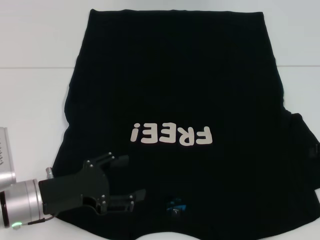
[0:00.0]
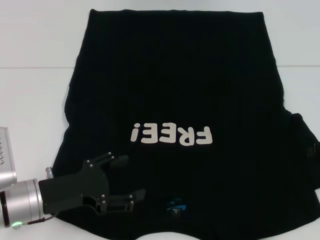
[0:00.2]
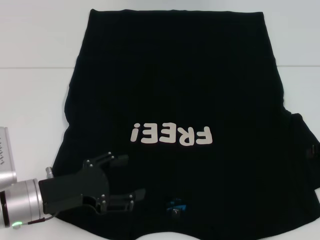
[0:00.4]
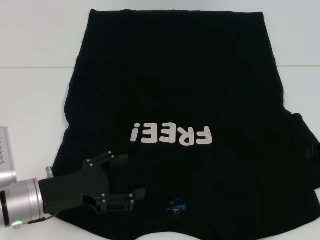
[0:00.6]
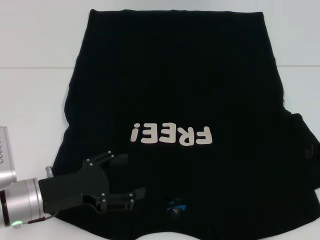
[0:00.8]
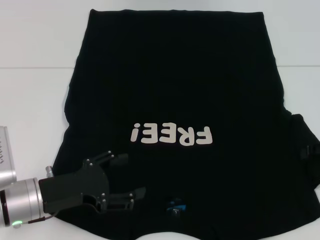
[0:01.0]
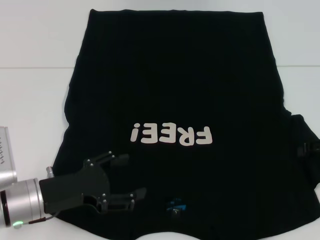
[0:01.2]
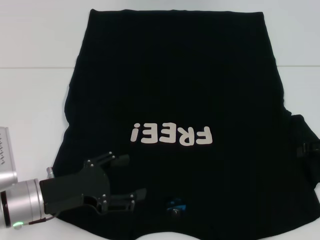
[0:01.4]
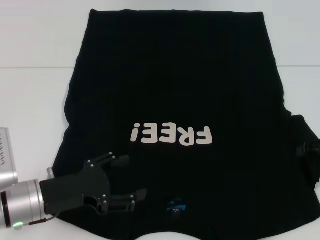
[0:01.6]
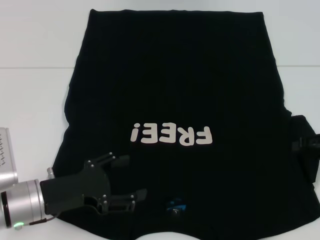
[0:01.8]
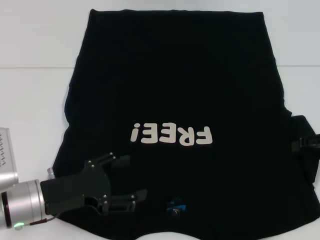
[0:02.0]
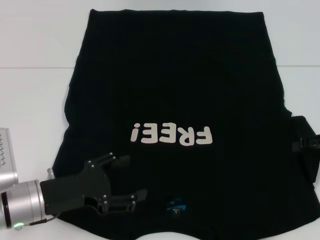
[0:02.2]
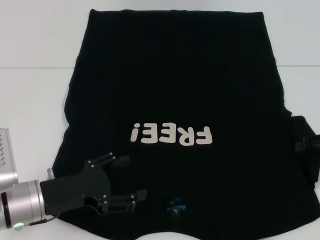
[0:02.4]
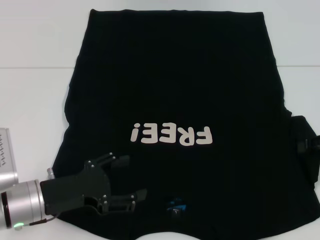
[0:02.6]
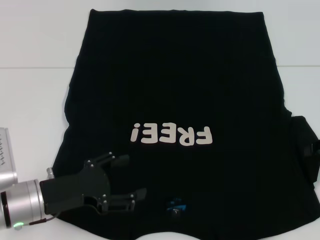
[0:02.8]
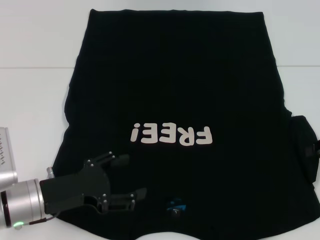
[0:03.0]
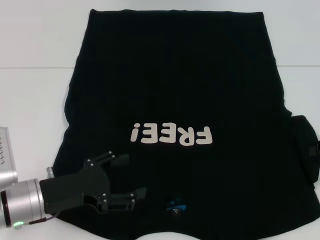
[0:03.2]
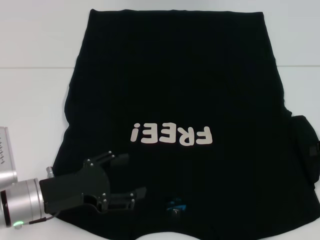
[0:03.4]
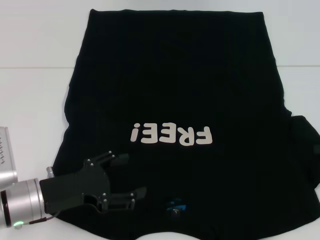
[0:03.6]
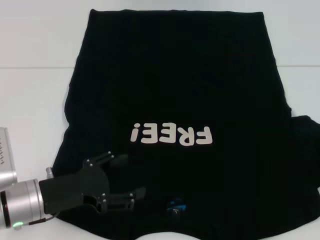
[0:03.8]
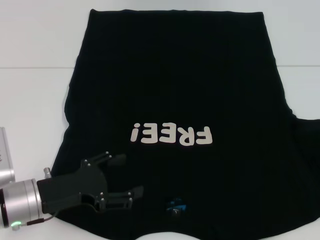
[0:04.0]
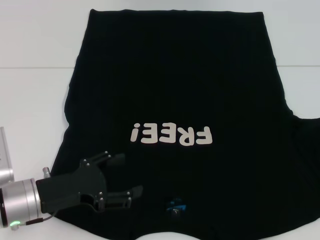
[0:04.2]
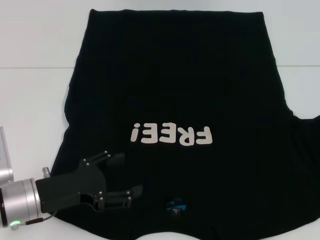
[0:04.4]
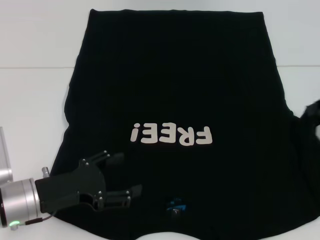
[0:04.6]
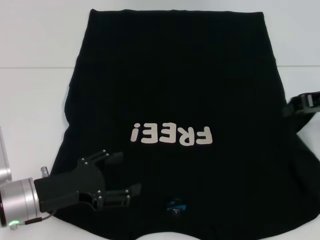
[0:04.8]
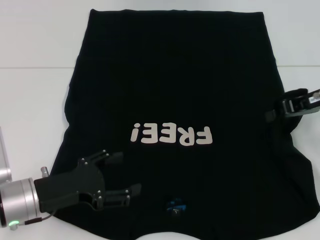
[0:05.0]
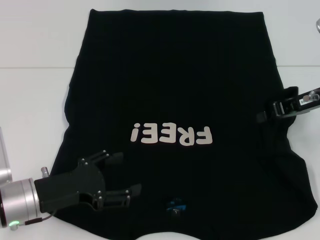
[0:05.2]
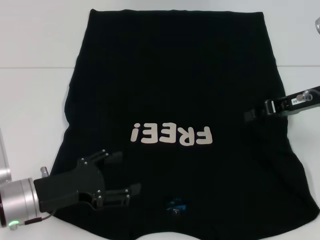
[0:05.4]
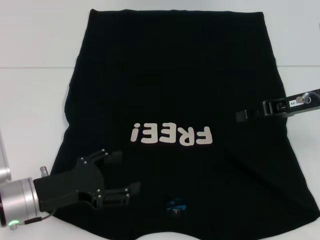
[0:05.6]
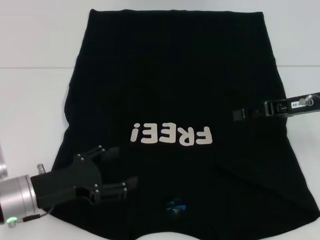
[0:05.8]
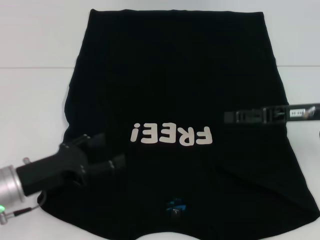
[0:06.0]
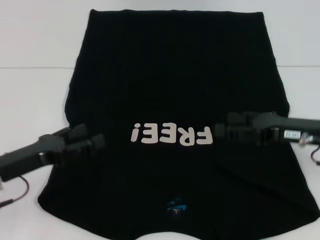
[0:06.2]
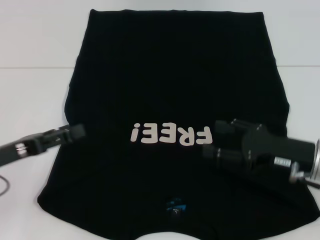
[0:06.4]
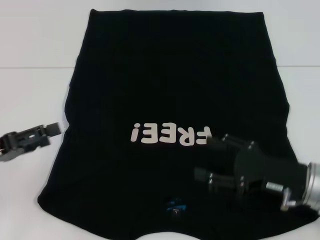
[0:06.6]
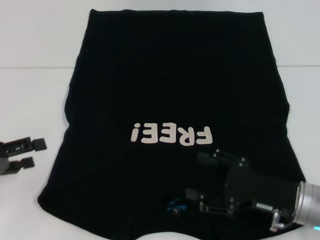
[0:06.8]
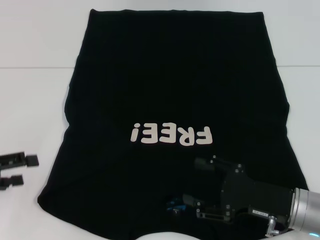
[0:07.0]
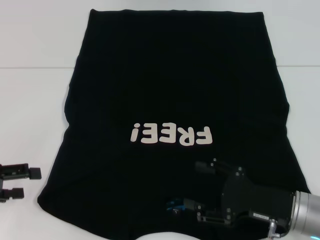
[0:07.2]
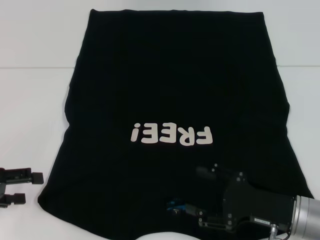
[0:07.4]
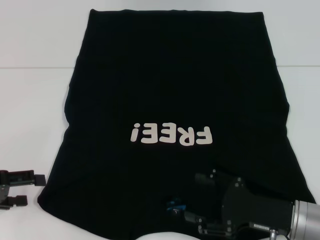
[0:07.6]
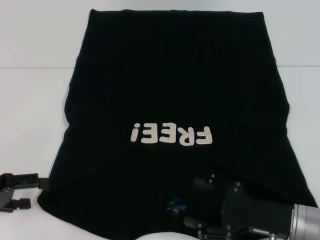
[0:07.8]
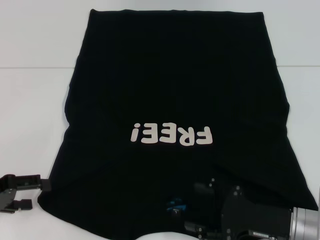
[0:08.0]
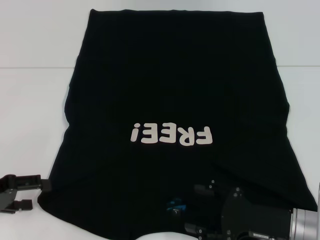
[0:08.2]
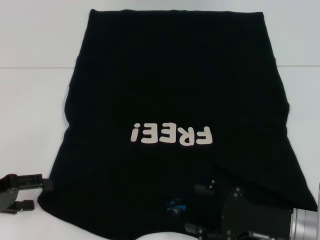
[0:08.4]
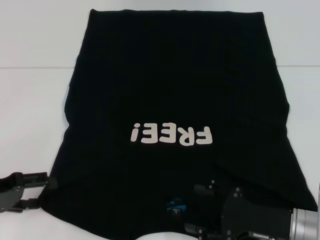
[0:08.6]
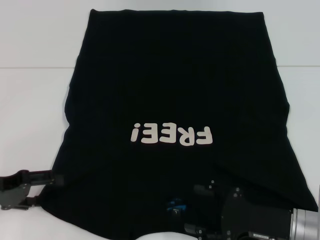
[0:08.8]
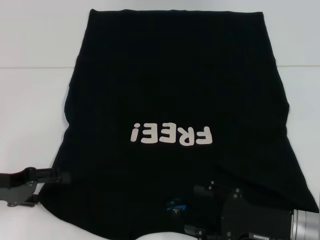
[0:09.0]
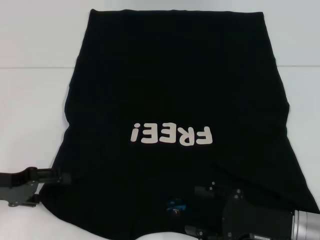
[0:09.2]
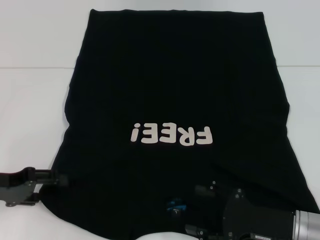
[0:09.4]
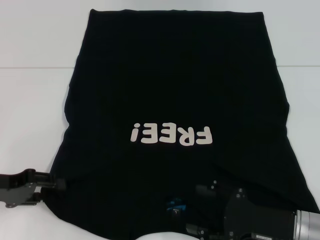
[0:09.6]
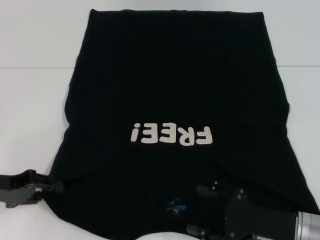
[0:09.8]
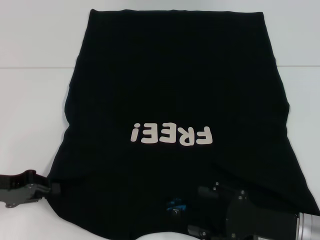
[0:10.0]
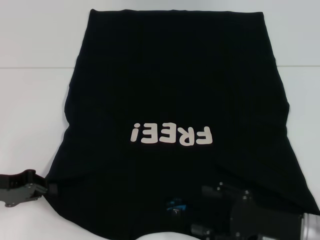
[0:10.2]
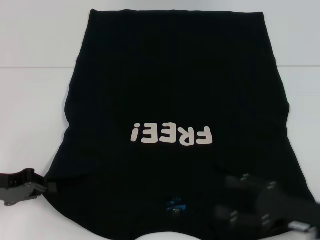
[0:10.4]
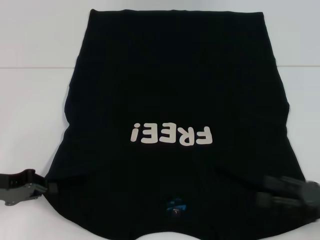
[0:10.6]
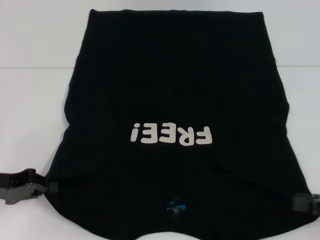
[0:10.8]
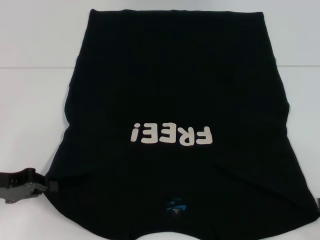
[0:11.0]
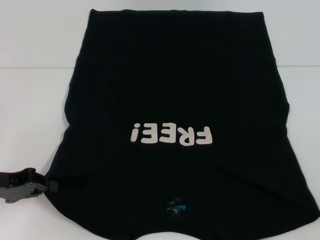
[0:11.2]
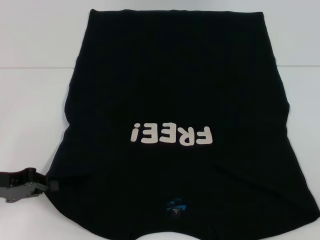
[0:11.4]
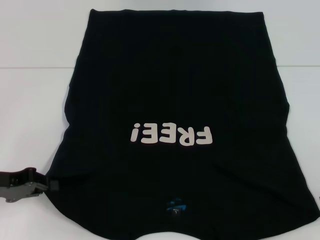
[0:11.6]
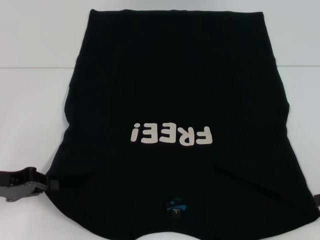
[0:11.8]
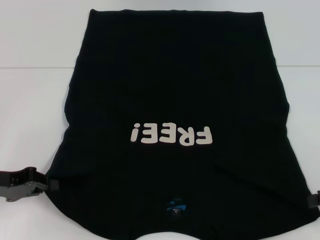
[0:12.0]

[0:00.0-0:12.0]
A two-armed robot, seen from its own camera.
Step, 0:00.0 to 0:05.6: Fold the bottom right sleeve with your right hand.
Step, 0:05.8 to 0:10.6: Grab the bottom left corner with your left hand.
0:00.0 to 0:01.6: The grippers make only small movements.
0:03.0 to 0:04.4: The right gripper ends up some 5 cm from where it was, and closes.
0:04.4 to 0:06.0: The right gripper shifts approximately 10 cm to the left, and opens.
0:06.0 to 0:07.6: The right gripper goes approximately 15 cm backward and downward, and opens. Meanwhile the left gripper travels to the left by some 10 cm.
0:07.6 to 0:09.0: The grippers stay close to where they were, moving slightly.
0:09.0 to 0:10.4: The left gripper closes.
0:10.4 to 0:12.0: The right gripper heads to the right, upward and forward, covering roughly 15 cm.

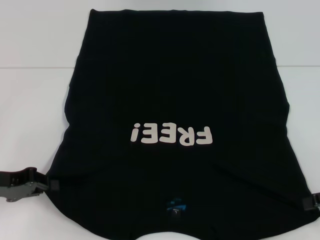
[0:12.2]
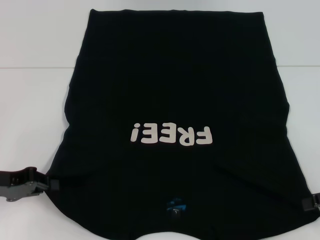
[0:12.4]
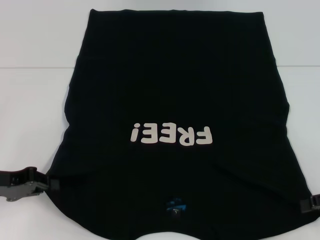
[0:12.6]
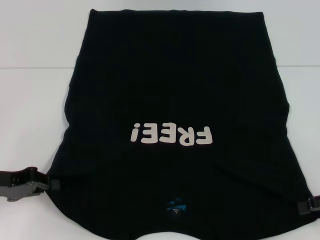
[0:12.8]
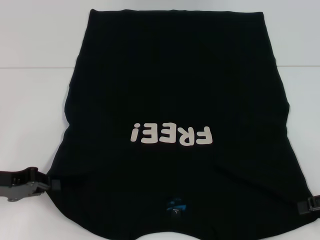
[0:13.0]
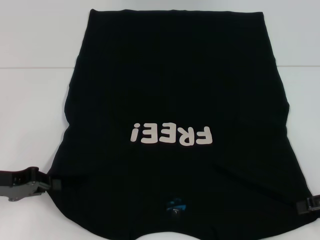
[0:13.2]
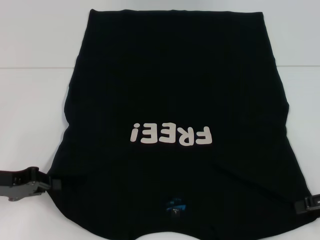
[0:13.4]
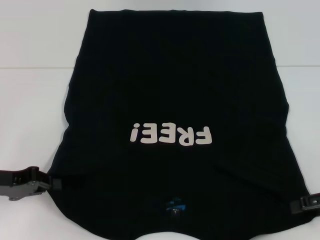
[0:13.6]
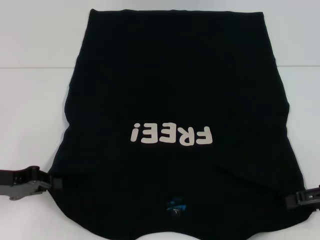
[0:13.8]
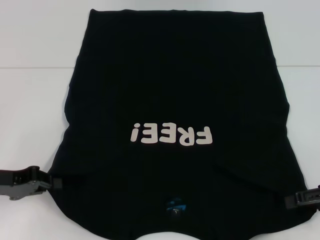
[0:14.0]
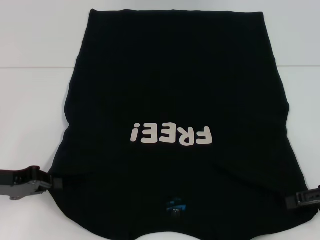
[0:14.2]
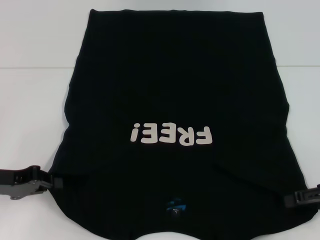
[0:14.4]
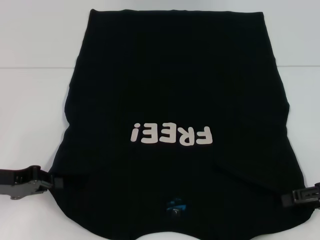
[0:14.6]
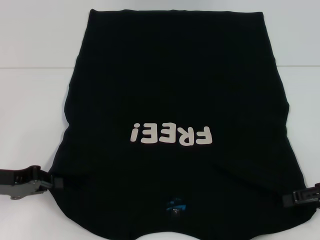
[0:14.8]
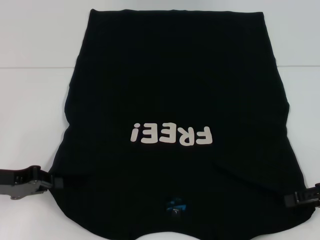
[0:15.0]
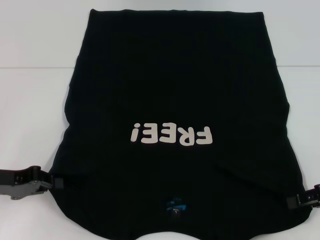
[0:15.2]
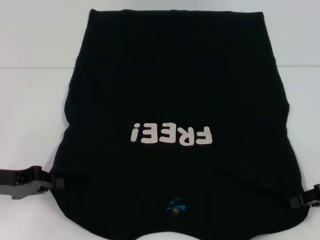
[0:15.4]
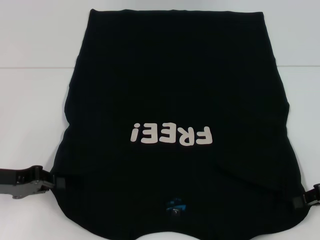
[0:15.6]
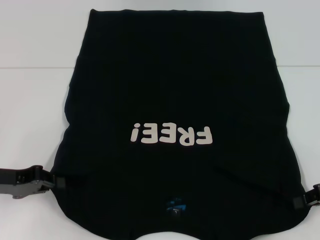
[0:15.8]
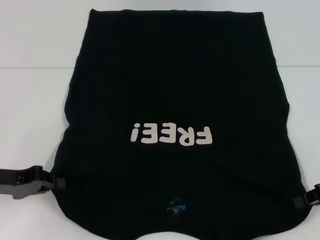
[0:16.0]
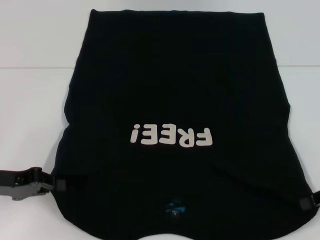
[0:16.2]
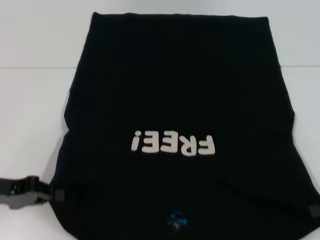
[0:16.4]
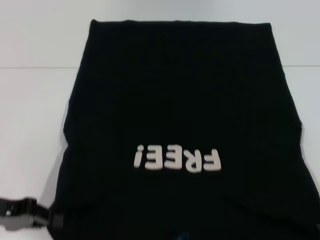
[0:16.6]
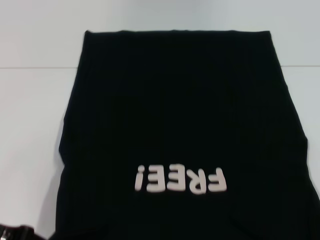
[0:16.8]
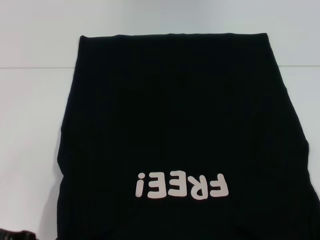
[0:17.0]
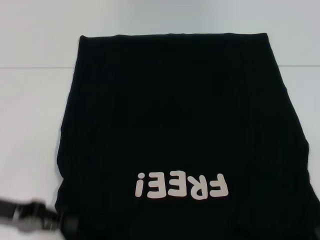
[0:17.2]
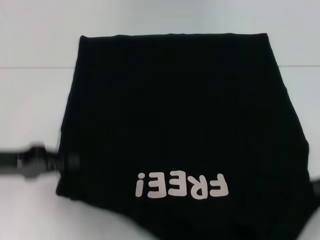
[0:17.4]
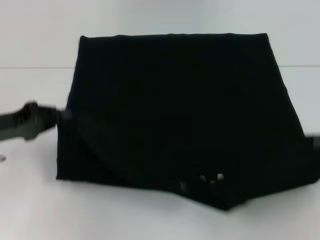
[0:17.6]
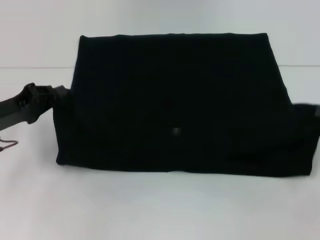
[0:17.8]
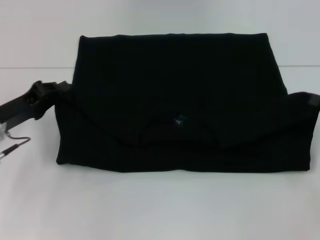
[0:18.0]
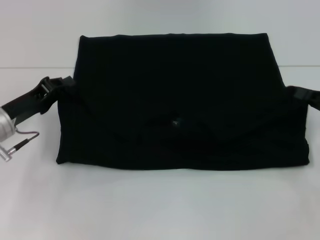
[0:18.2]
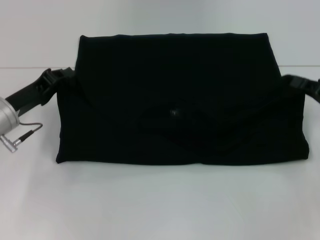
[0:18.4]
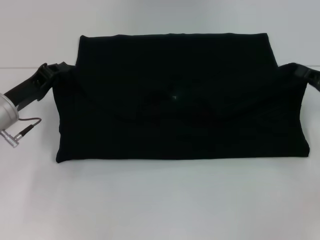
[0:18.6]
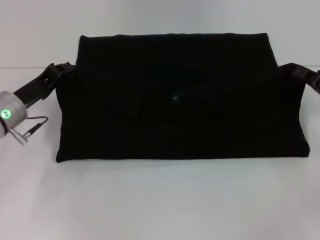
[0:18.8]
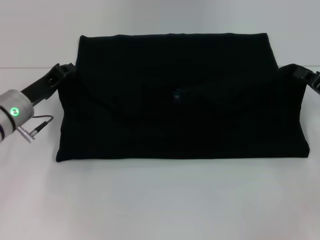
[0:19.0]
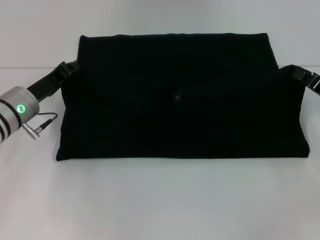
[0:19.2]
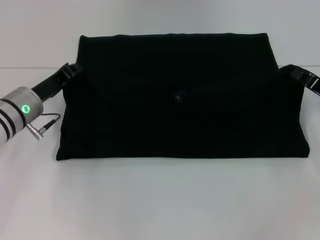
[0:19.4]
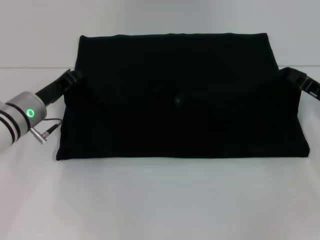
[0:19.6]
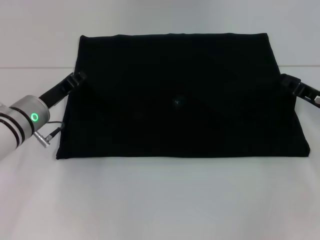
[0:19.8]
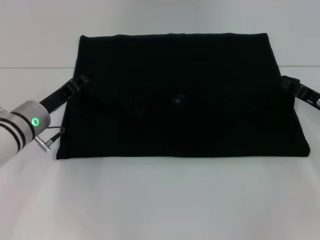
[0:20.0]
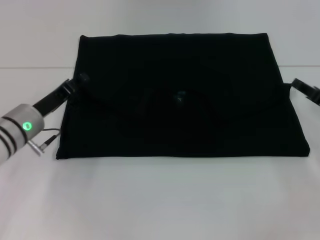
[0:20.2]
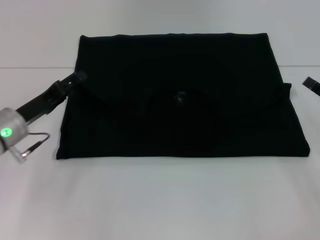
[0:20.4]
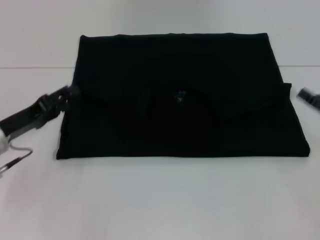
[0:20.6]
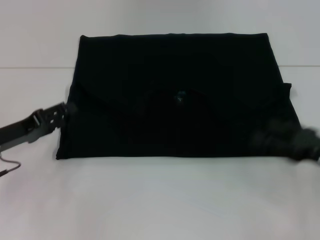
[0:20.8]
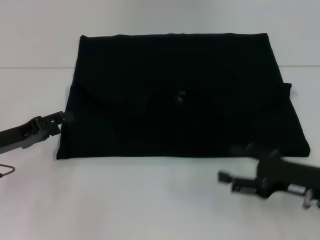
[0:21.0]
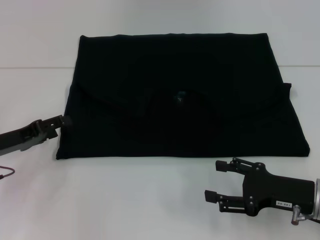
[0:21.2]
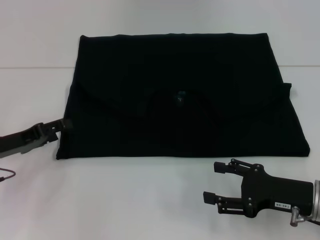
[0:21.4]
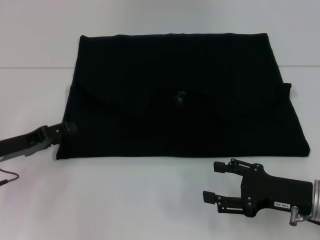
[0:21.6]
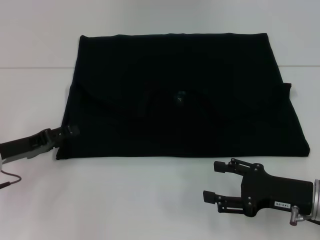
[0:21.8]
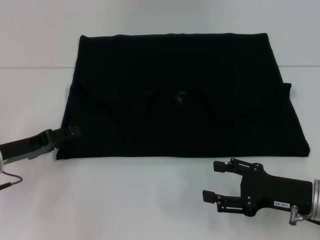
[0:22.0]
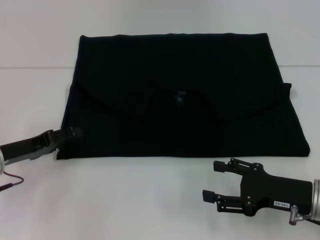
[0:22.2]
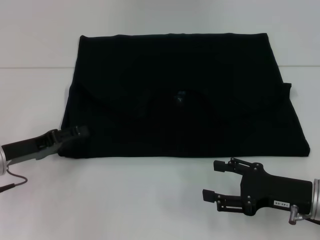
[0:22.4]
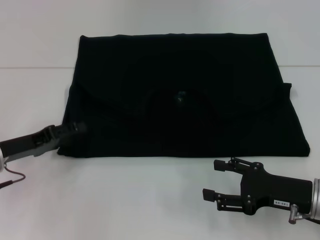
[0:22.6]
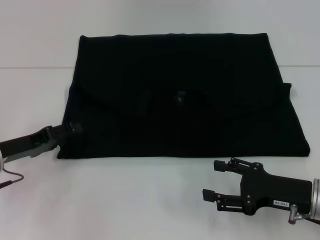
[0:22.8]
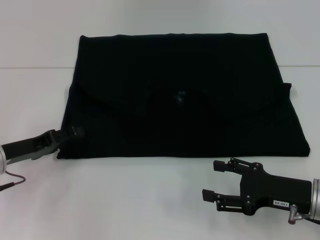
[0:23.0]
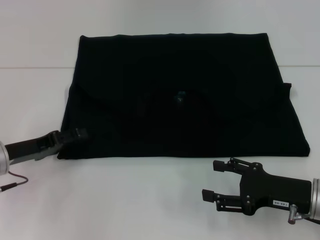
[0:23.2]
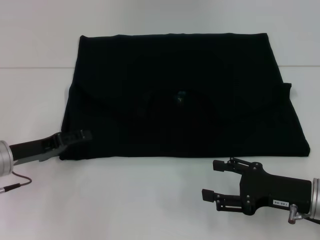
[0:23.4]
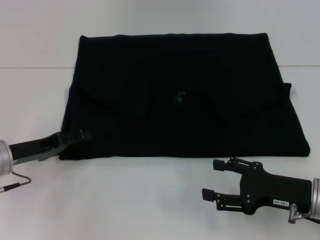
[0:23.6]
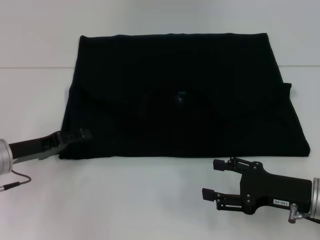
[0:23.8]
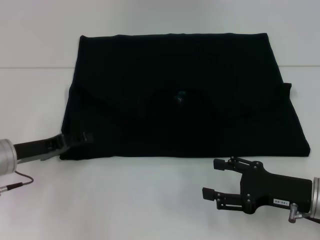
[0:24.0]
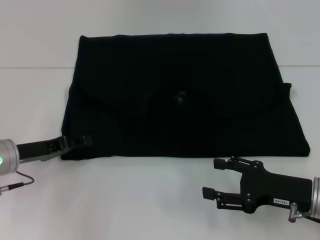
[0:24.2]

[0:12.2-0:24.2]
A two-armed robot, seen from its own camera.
Step, 0:12.2 to 0:16.0: Grab the bottom right corner with your right hand.
Step, 0:16.2 to 0:20.2: Fold the clothes with your left hand.
Step, 0:16.2 to 0:20.2: Fold the clothes with your right hand.
0:12.2 to 0:13.8: There are only small adjustments of the grippers.
0:13.8 to 0:15.2: Both grippers stay put.
0:15.2 to 0:16.6: The right gripper closes.
0:16.6 to 0:18.2: The right gripper changes place by approximately 5 cm, while the left gripper is displaced forward by approximately 10 cm.
0:18.2 to 0:19.8: The left gripper ends up about 5 cm from where it was. Meanwhile the right gripper moves roughly 5 cm.
0:19.8 to 0:21.2: The left gripper travels to the left and backward by approximately 10 cm, and opens up; the right gripper travels backward and to the left by approximately 10 cm, and opens up.
0:21.2 to 0:24.2: There are only small adjustments of the grippers.
